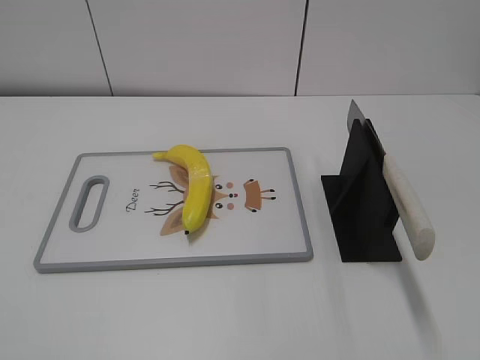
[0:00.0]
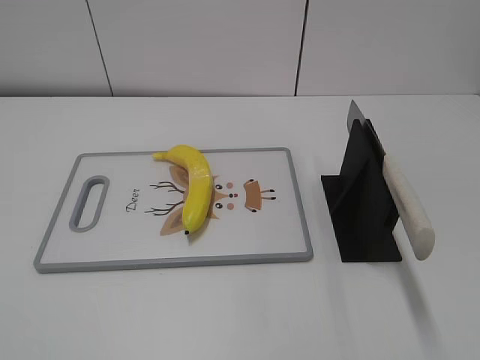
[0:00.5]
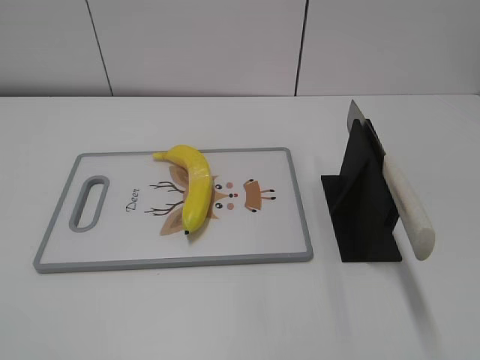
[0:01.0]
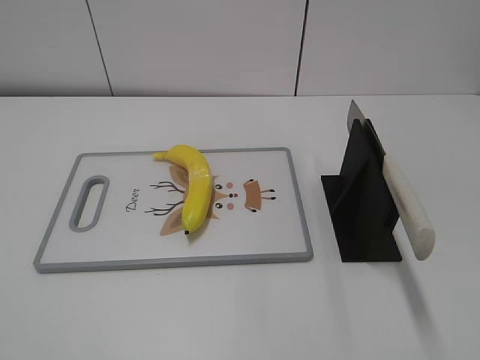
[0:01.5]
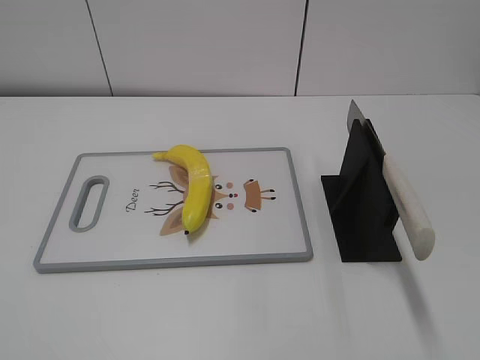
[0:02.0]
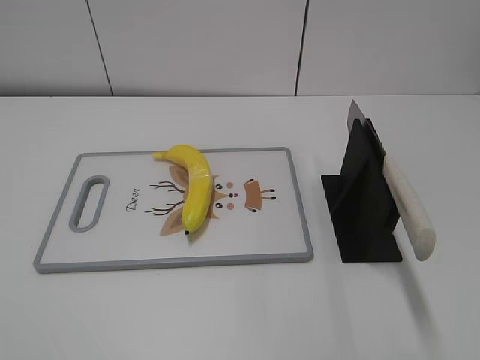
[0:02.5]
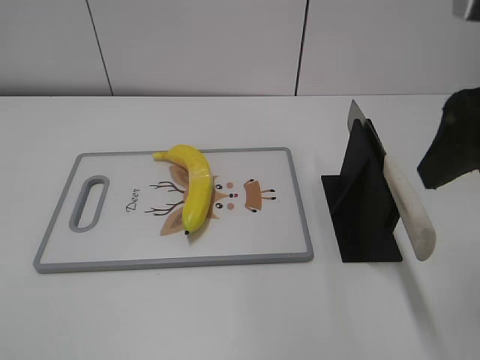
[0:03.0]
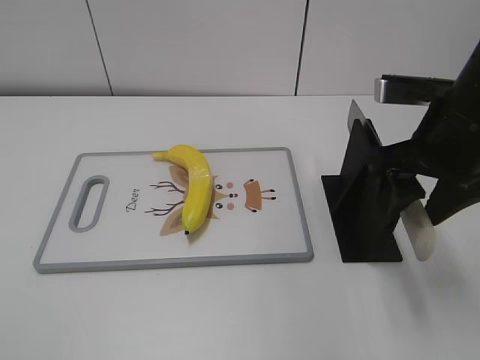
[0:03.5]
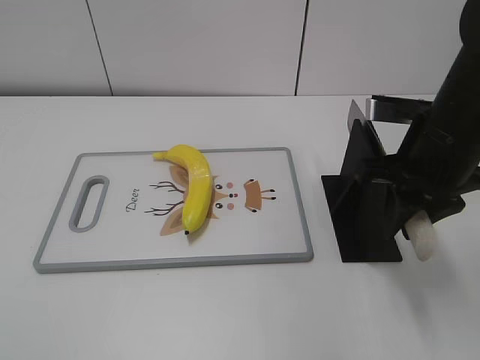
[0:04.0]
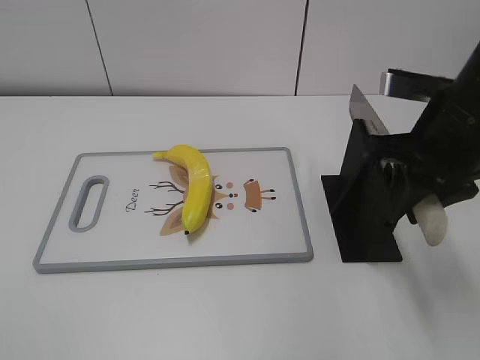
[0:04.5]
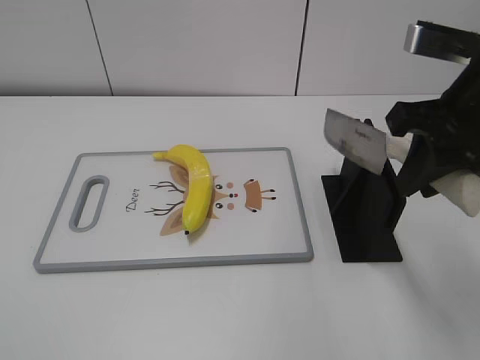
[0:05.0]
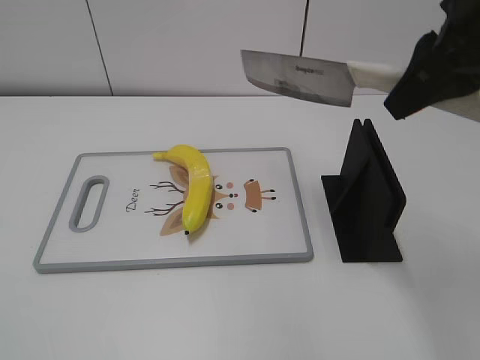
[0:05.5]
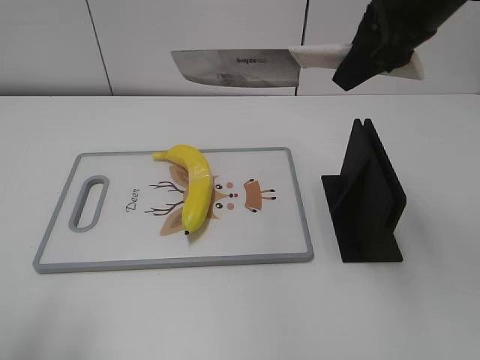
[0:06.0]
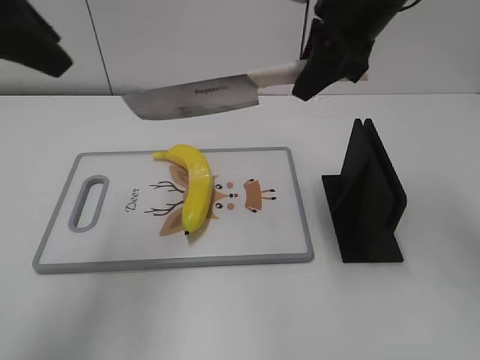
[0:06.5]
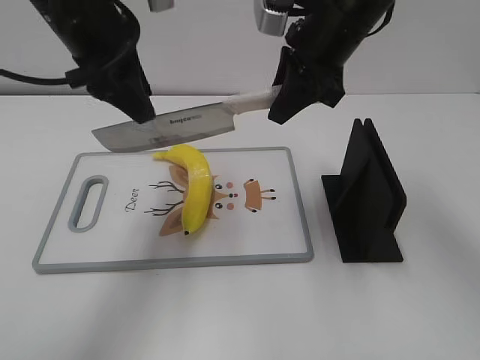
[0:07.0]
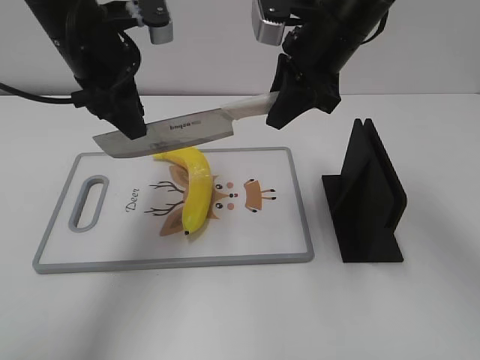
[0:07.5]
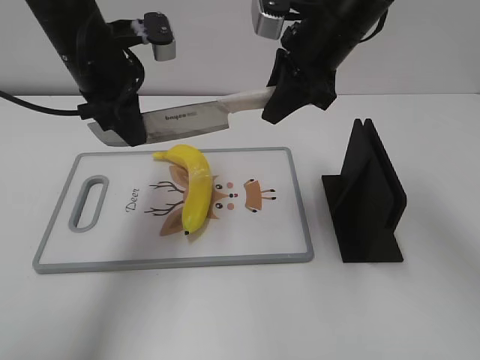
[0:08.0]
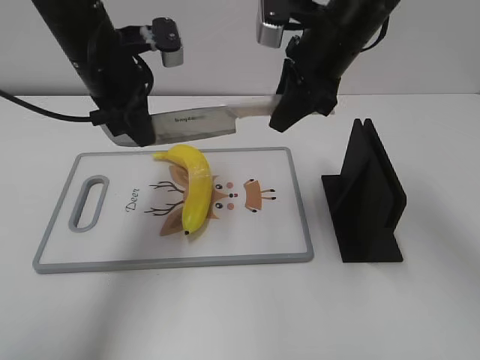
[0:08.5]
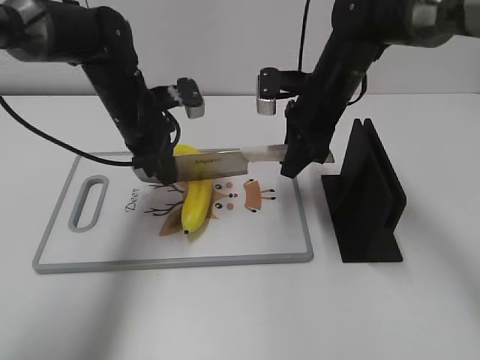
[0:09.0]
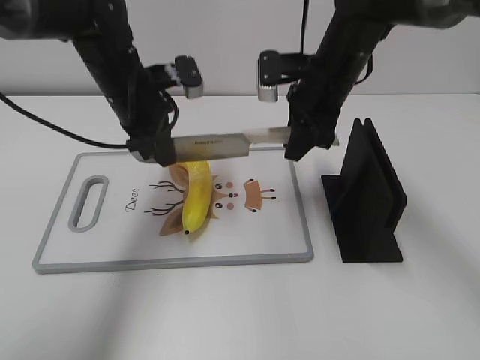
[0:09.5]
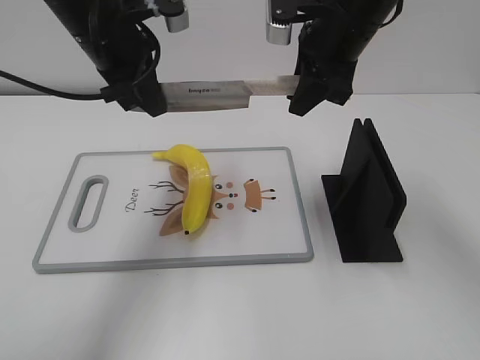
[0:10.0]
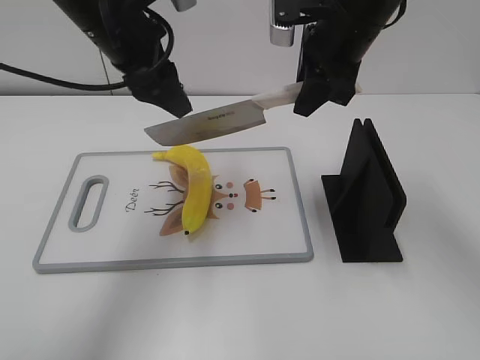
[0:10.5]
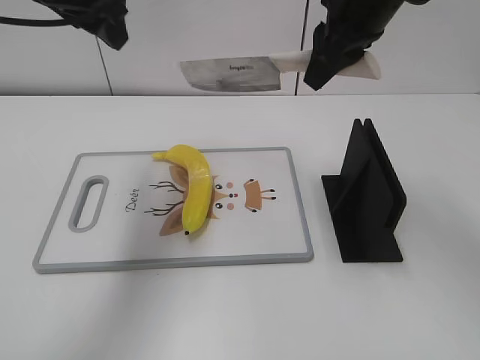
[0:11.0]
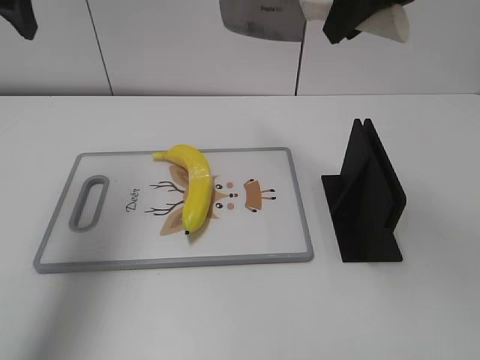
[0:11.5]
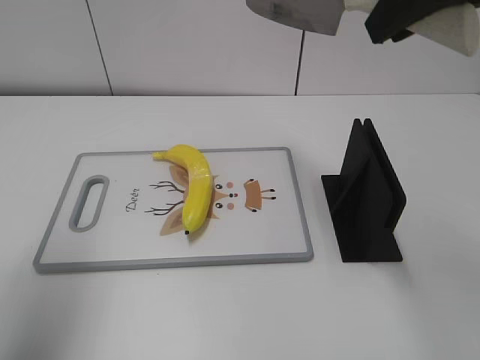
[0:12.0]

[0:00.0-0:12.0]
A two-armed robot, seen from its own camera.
Task of the whole recording: cut plastic banana.
Step, 0.0 to 5.0 s: Grab the knife handle with your right hand.
Step, 5.5 to 10.0 s: Lift the knife with your right hand.
Step, 10.5 to 11.5 s: Cut the banana with your right hand.
2.0 to 4.0 s: The right gripper heads forward, covering approximately 30 cm, and closes up.
4.0 to 6.0 s: The left gripper goes about 10 cm forward and upward. The right gripper travels upward by about 10 cm.
6.0 to 8.0 s: The left gripper goes approximately 30 cm forward and to the right. The right gripper is displaced downward, forward and to the left by about 10 cm.
8.0 to 10.0 s: The right gripper travels downward and back again, some 10 cm each way. The left gripper goes downward and returns, about 10 cm each way, and closes its fingers.
10.0 to 12.0 s: The left gripper shifts approximately 20 cm to the left, backward and upward, and opens. Meanwhile the right gripper goes roughly 20 cm upward and backward.

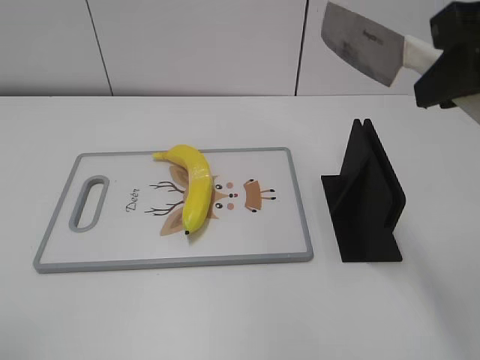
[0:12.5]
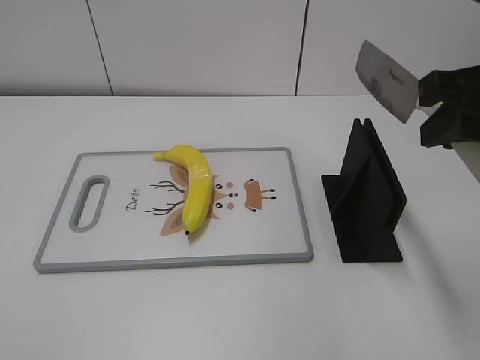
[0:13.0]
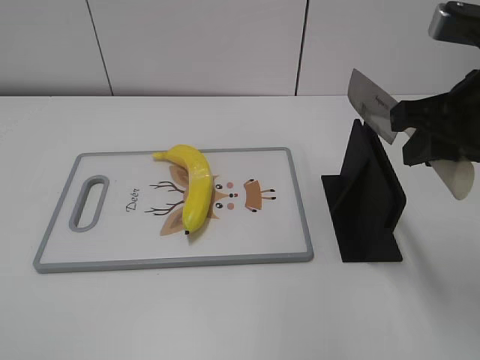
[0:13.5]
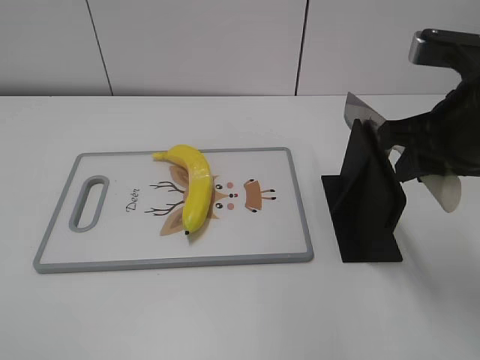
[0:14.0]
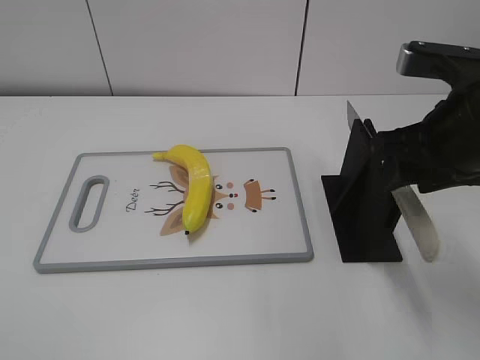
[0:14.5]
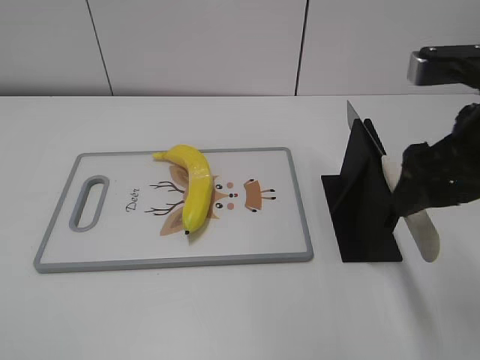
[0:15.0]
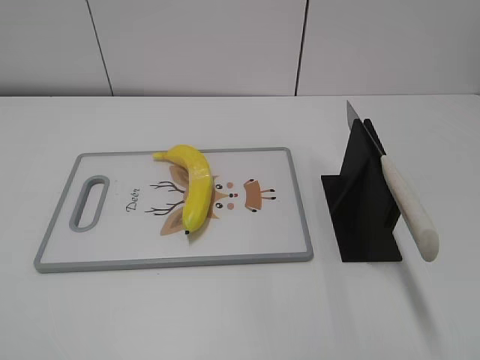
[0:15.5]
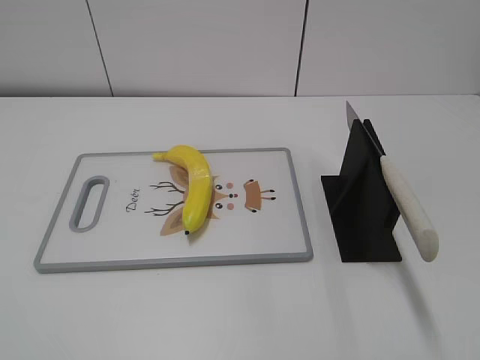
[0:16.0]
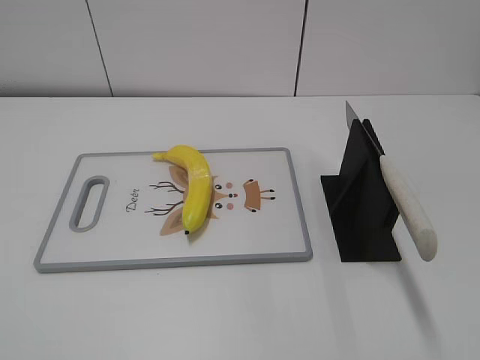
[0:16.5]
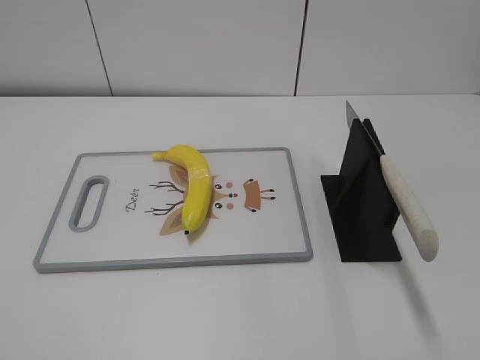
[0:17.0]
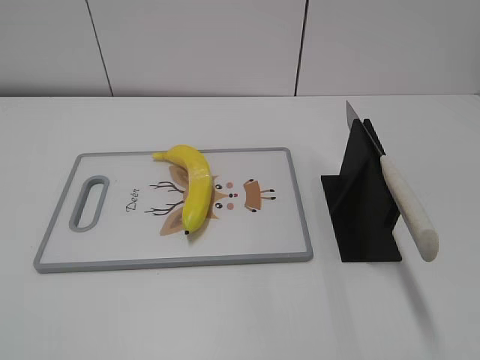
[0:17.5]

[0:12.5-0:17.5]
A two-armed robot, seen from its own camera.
Task of the whole recording: cut plastic banana.
Step, 12.5 to 17.5 s: Place the knife on the storage rack with your right hand.
12.5 to 15.0 s: The right gripper is displaced downward by roughly 10 cm, and opens its fingers.
15.0 to 17.5 s: The right gripper is displaced backward by some 25 cm.

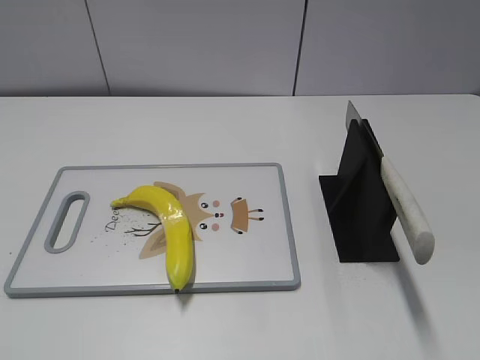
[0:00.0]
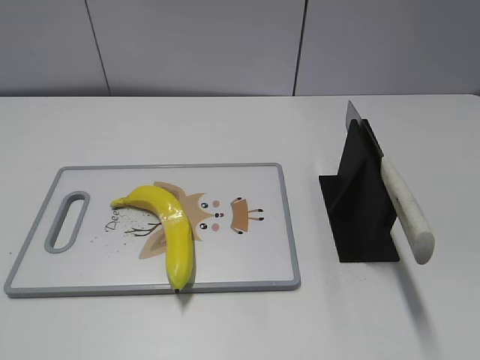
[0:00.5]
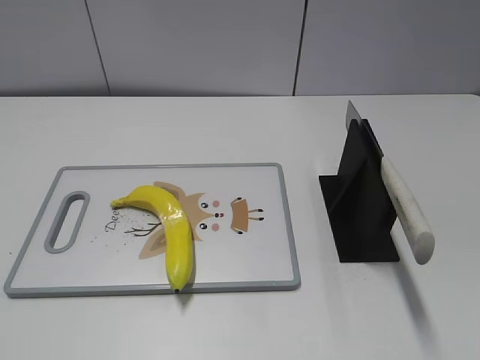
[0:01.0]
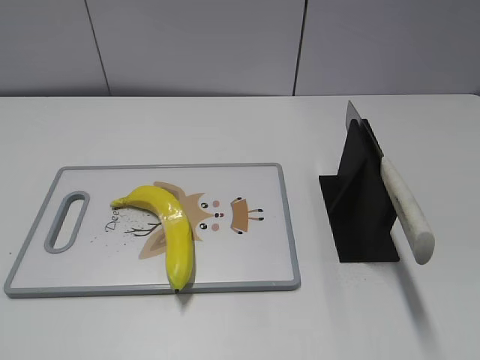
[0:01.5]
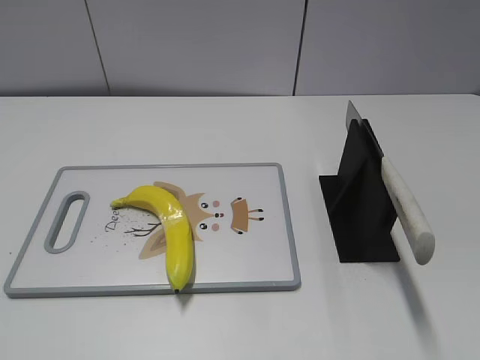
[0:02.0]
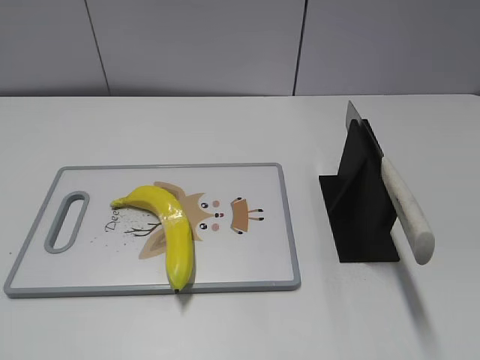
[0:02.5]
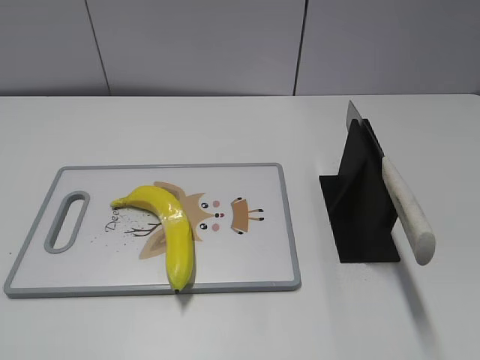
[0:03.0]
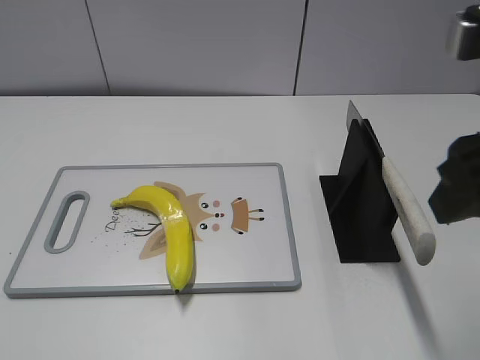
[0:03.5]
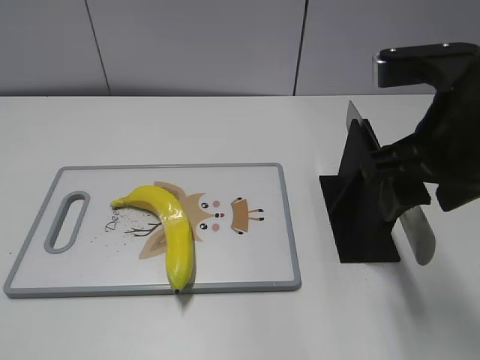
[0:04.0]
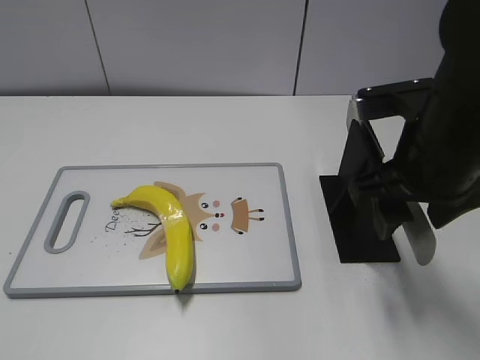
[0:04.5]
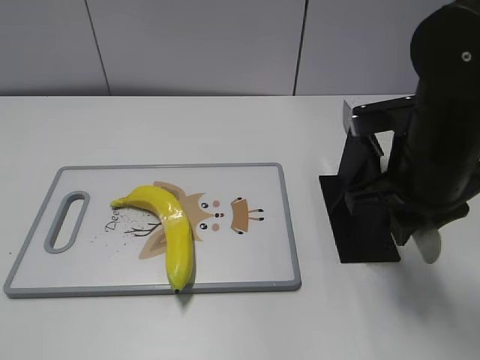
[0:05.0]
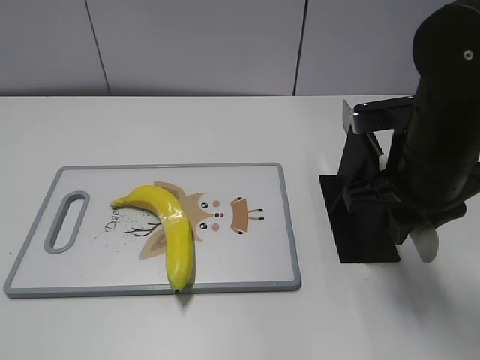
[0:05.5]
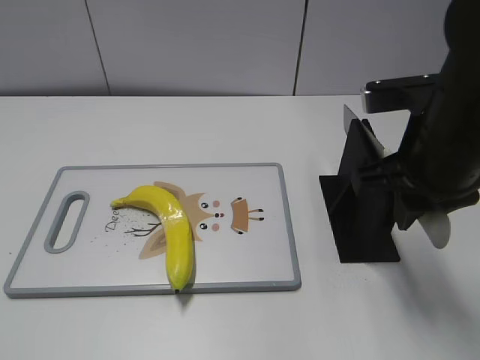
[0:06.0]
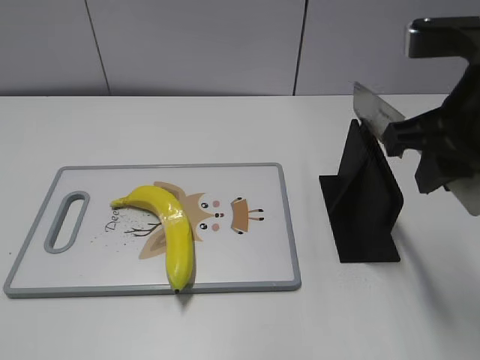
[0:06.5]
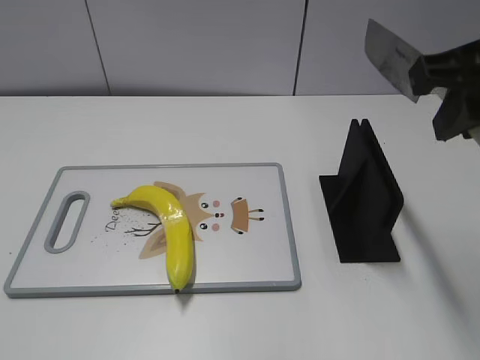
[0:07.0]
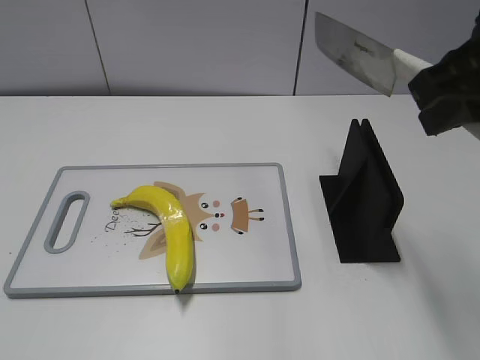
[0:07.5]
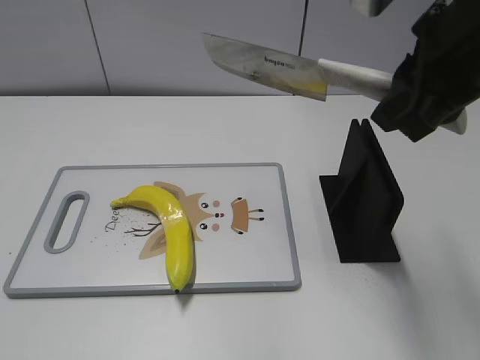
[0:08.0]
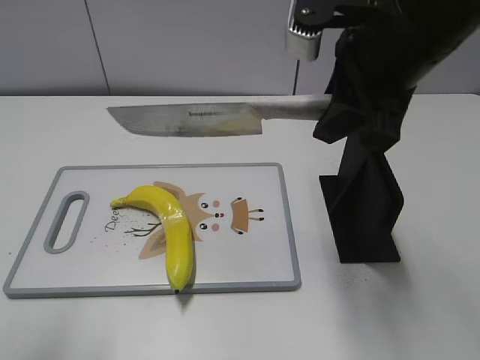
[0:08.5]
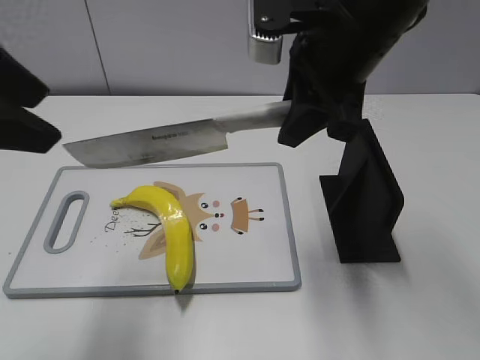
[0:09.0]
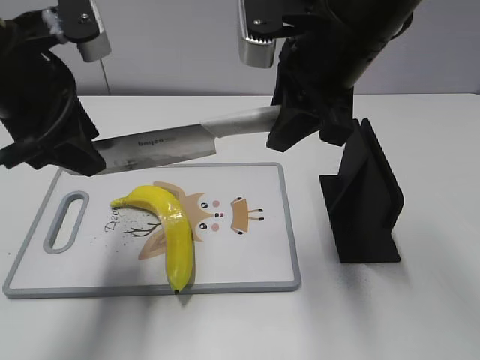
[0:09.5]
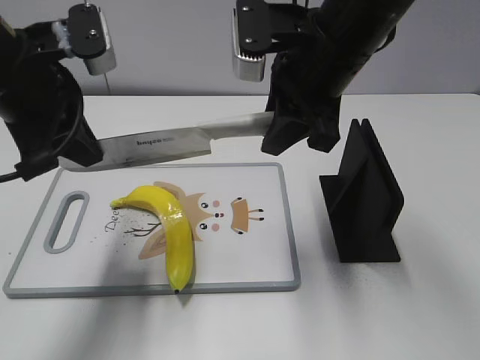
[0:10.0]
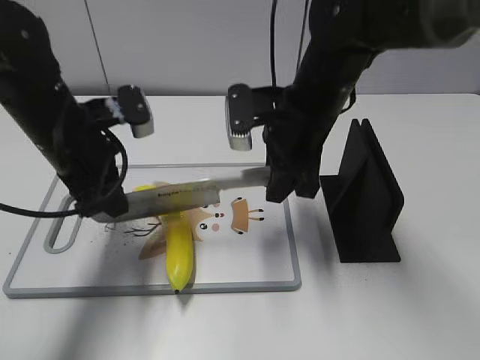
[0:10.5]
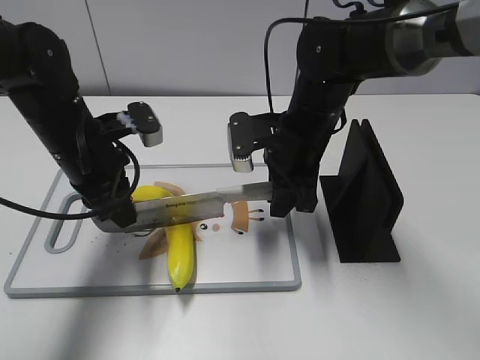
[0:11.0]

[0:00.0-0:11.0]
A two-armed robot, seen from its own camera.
Task of the whole recording: cut plastic banana.
Step, 0.0 to 6.5 s: Grab the knife handle with your right hand.
2.0 to 3.5 s: The right gripper moves forward and to the left, about 20 cm.
3.5 to 5.5 s: The right gripper goes about 15 cm downward and forward, and closes.
5.5 to 7.5 s: The right gripper moves upward, some 15 cm.
7.5 to 9.0 s: The right gripper moves to the left and forward, some 10 cm. Meanwhile the left gripper goes approximately 20 cm forward and to the right.
9.0 to 11.0 s: The left gripper travels downward and forward by some 25 cm, and closes up; the right gripper travels downward by roughly 15 cm.
